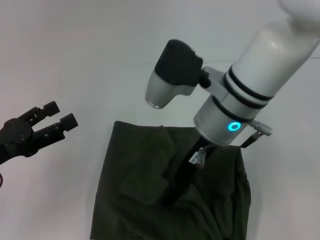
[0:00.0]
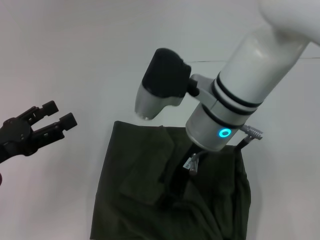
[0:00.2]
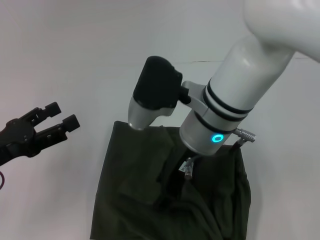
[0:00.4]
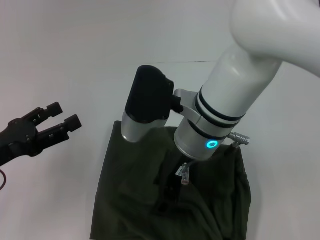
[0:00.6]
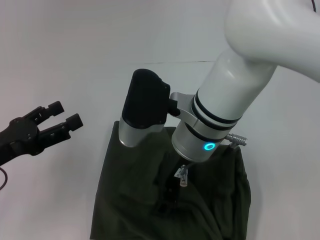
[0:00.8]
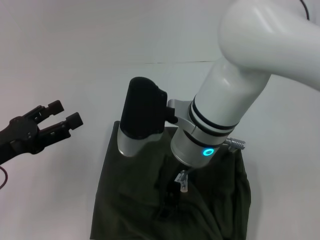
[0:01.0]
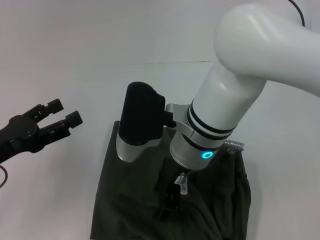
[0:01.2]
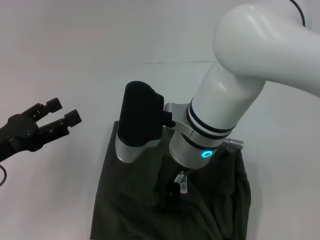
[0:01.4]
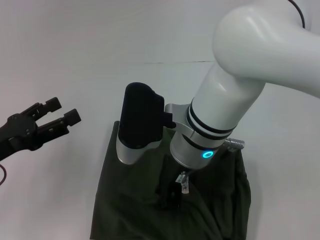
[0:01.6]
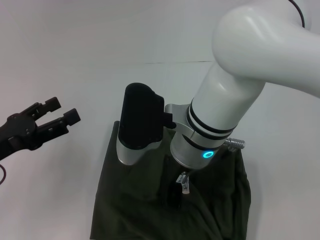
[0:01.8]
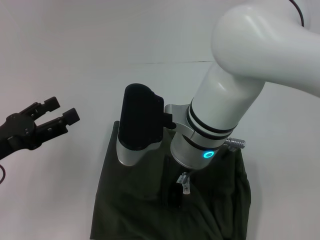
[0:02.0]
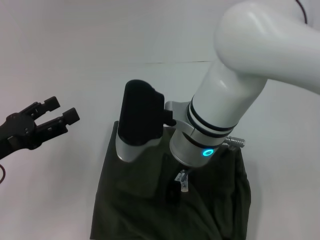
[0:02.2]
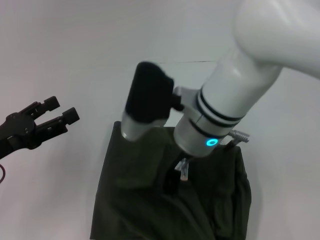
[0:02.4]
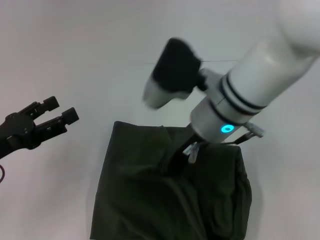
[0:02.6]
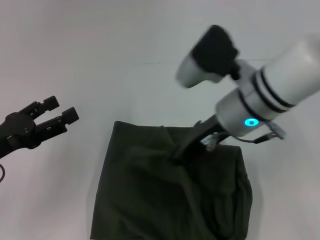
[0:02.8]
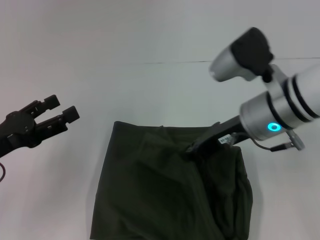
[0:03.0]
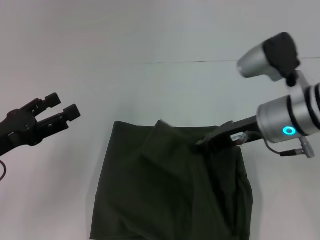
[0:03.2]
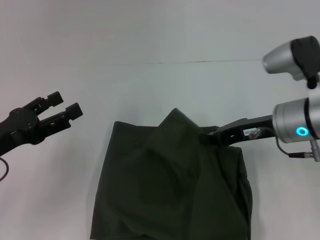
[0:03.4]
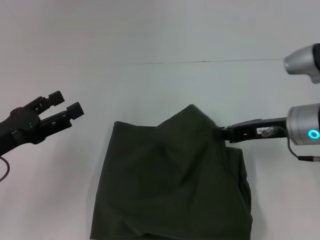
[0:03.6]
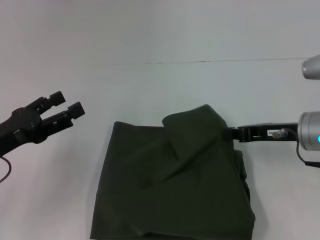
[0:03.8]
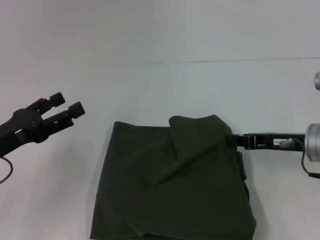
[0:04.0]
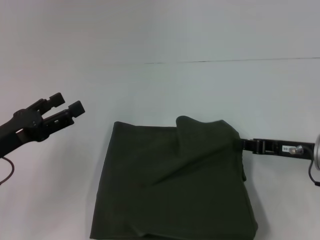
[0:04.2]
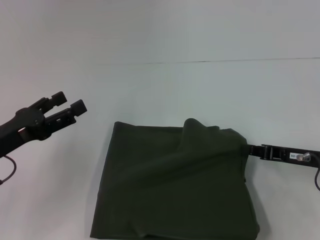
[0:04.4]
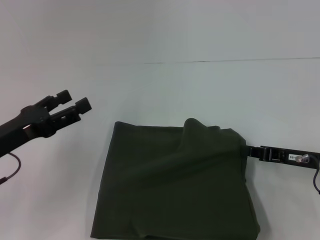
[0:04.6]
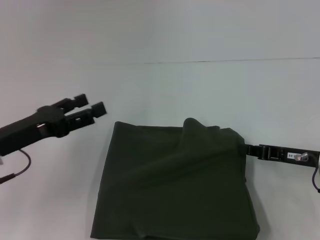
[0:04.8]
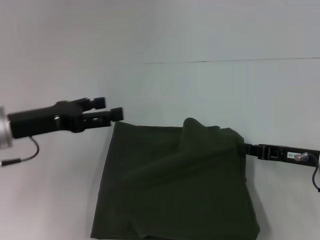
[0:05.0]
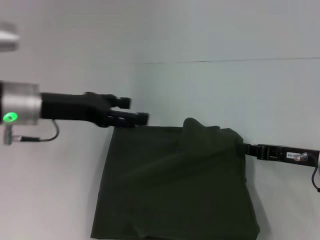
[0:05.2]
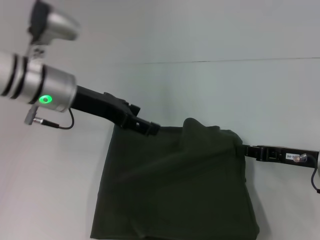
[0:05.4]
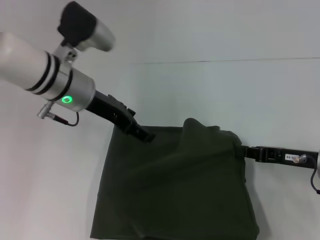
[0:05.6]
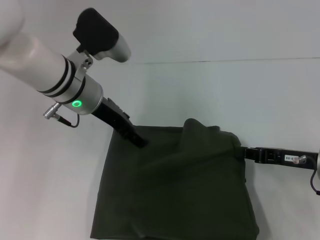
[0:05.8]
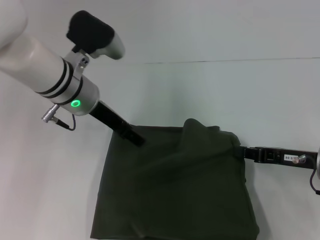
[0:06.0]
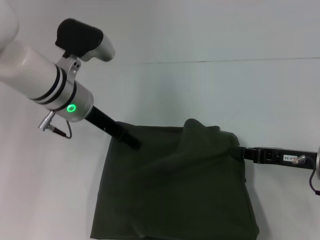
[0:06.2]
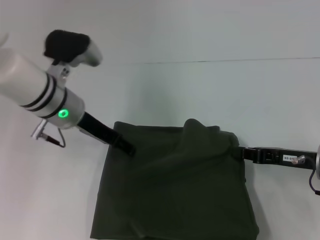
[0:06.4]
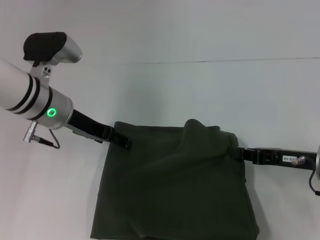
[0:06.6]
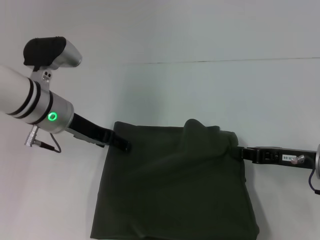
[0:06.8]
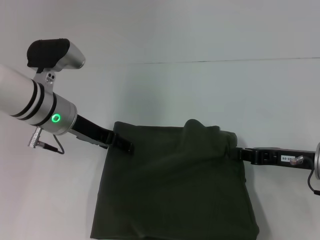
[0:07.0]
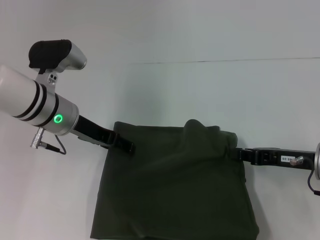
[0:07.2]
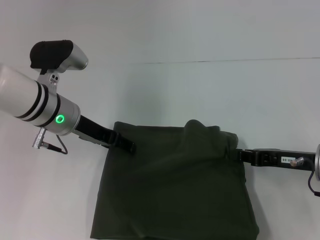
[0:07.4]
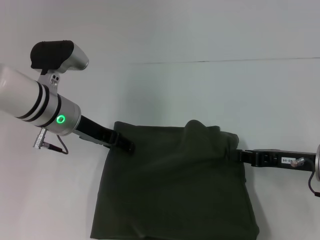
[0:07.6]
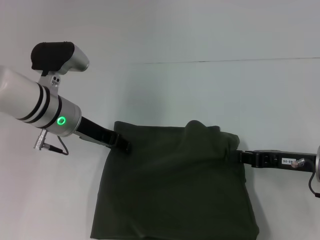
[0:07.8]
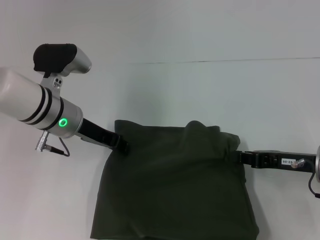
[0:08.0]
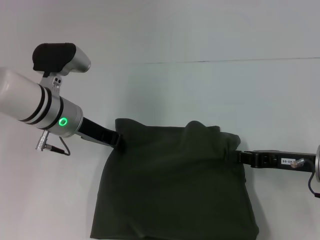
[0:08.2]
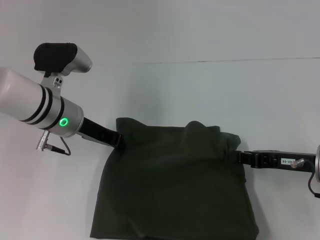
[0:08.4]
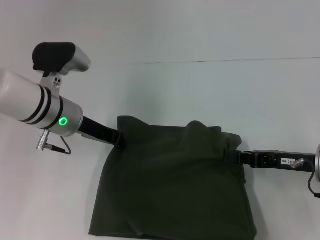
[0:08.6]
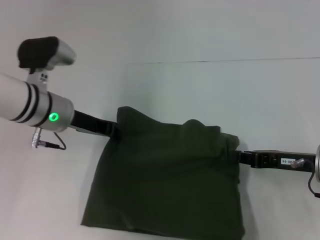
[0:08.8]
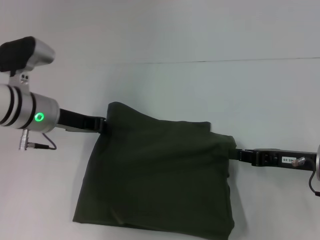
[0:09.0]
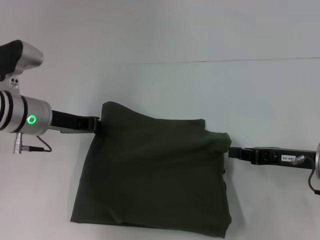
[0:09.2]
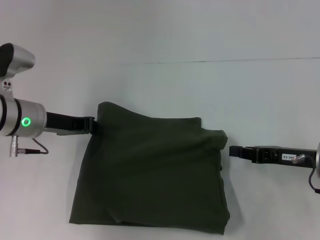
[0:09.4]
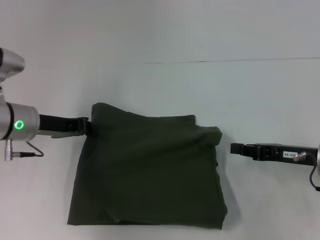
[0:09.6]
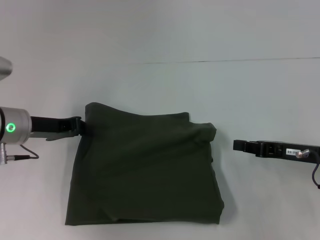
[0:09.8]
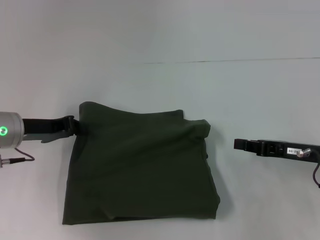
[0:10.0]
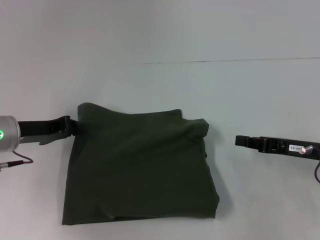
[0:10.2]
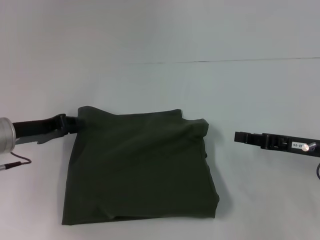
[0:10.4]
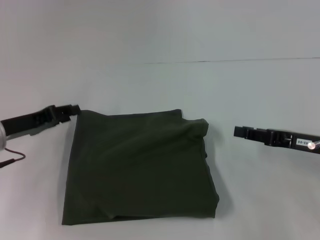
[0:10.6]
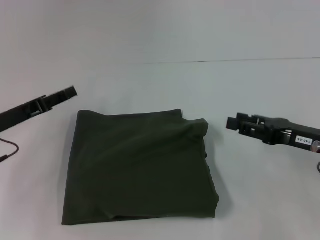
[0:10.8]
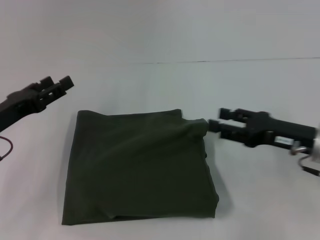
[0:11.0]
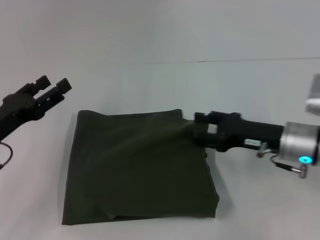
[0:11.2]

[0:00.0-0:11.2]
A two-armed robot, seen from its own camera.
0:00.0 to 0:01.6: The right gripper shifts by about 5 cm.
0:01.6 to 0:03.2: The right gripper heads to the right, covering about 15 cm, and closes up.
0:03.2 to 0:04.8: The right gripper travels to the right and downward by approximately 15 cm.
0:04.8 to 0:06.4: The left gripper goes roughly 15 cm to the right and forward.
0:06.4 to 0:08.0: The left gripper closes up.
0:08.0 to 0:09.6: The left gripper goes about 5 cm to the left, and closes.
0:09.6 to 0:11.2: The right gripper moves some 5 cm, and opens up. Meanwhile the left gripper heads backward and to the left, covering roughly 10 cm, and opens its fingers.

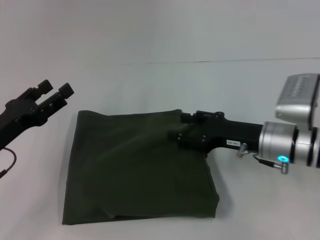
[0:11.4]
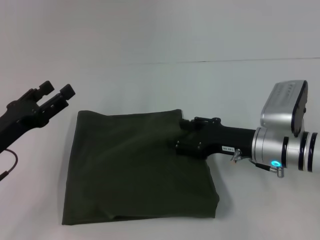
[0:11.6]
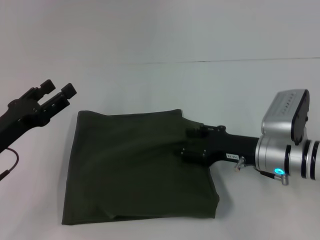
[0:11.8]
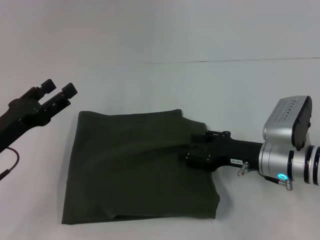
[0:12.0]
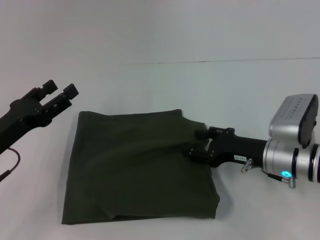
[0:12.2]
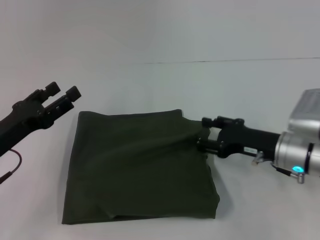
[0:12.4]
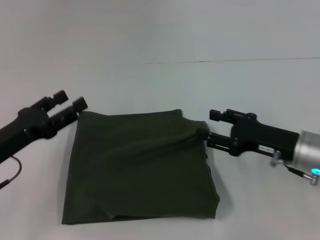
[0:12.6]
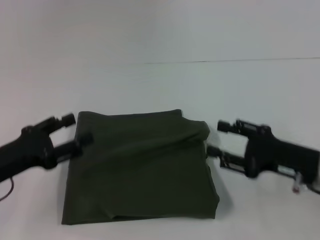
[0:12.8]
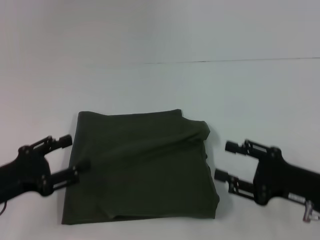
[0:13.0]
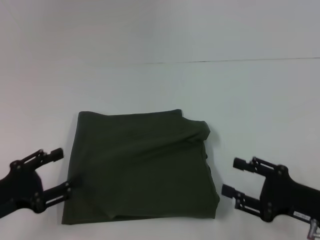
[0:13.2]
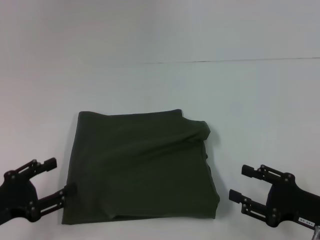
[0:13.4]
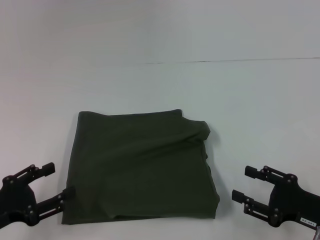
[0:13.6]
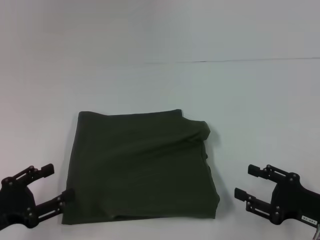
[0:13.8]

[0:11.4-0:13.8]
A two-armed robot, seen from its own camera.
0:11.4 to 0:12.6: There are only small adjustments of the grippers.
0:12.6 to 0:13.8: The right gripper moves backward and to the right, roughly 10 cm, while the left gripper is displaced backward by some 10 cm.
